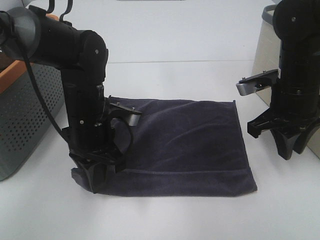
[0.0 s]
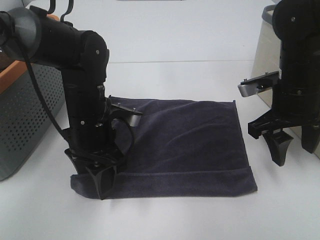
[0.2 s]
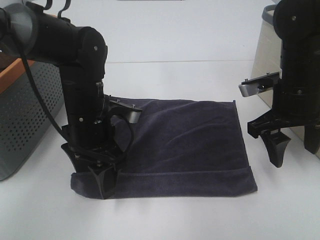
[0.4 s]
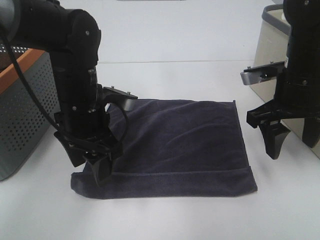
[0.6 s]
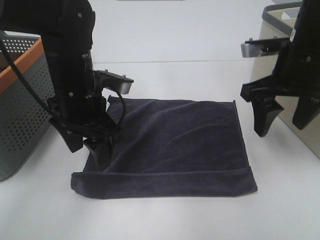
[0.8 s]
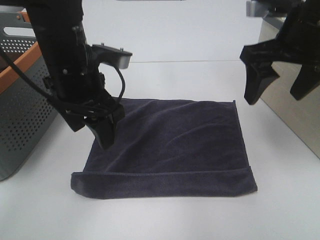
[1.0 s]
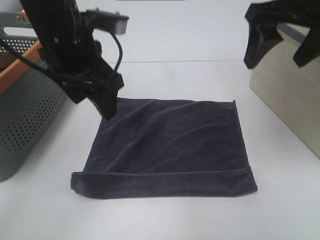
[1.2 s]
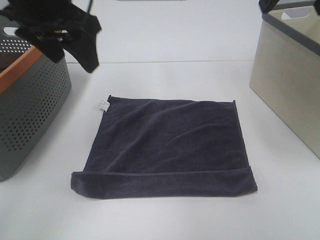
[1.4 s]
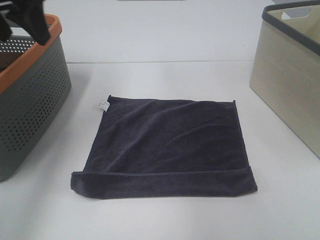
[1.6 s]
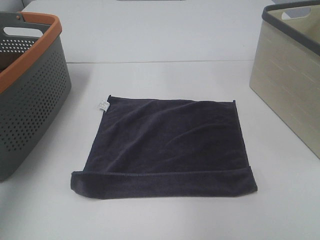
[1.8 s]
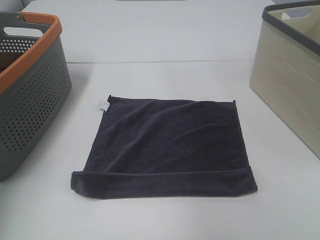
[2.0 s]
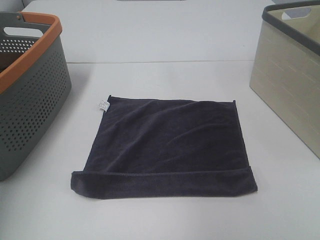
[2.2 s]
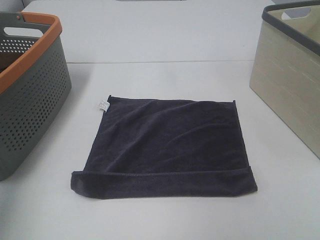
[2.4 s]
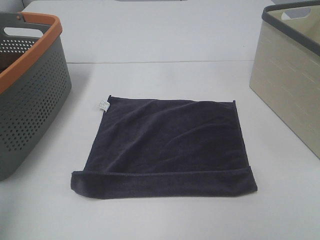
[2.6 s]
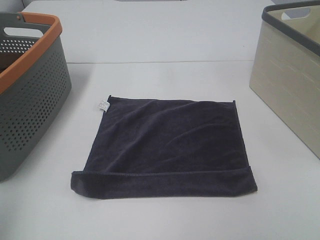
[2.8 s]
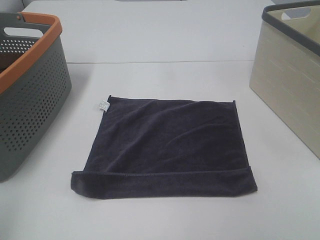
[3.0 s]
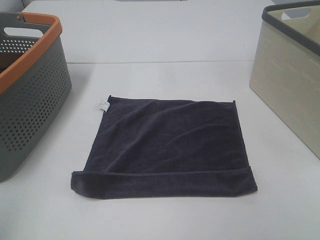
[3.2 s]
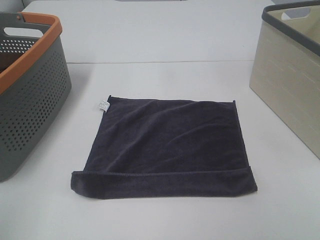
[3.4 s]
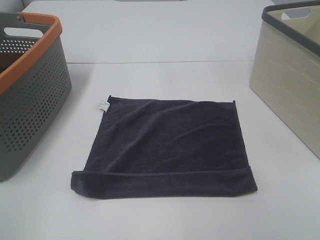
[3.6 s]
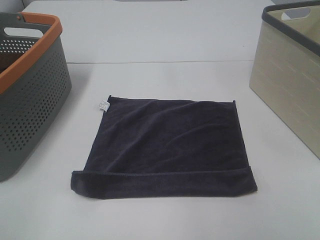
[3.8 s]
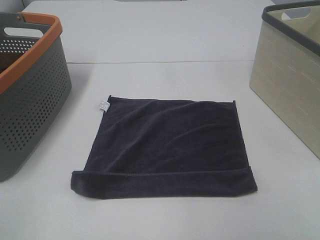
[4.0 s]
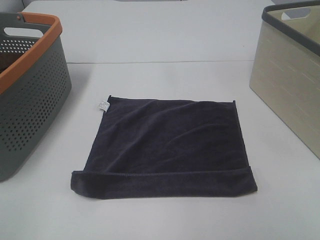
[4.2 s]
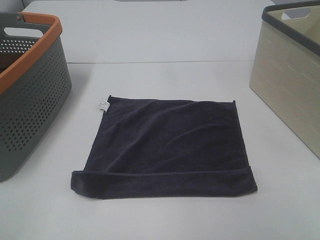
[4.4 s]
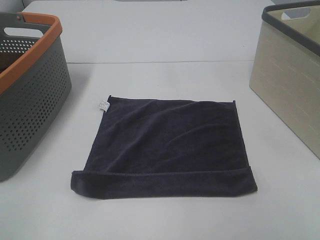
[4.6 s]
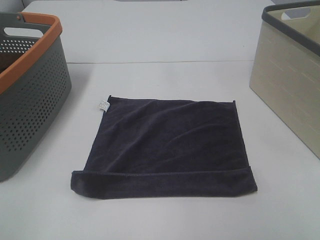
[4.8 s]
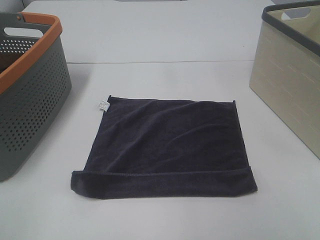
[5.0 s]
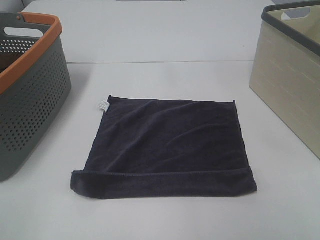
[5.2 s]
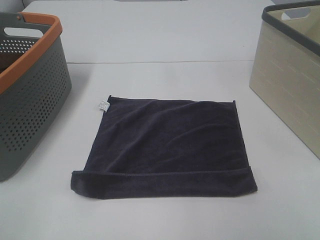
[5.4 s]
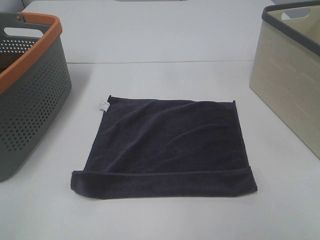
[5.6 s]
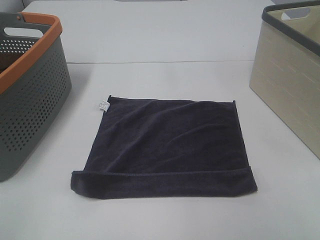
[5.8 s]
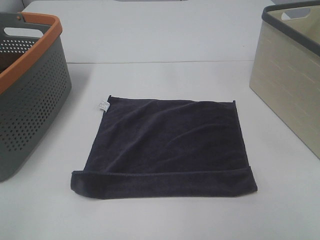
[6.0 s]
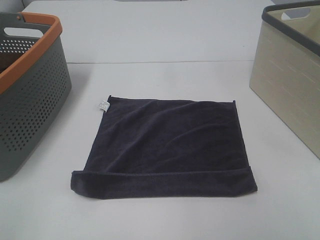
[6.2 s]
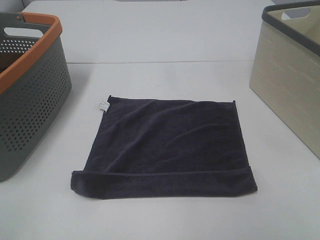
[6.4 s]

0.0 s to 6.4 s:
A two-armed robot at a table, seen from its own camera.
Task of the whole recording: Remove the towel and place it.
0.0 to 1.6 s: The left gripper shifts roughly 25 cm upward and to the left, and opens up. Meanwhile the right gripper moves upward, some 25 cm, and opens.
1.6 to 3.2 s: The left gripper shifts roughly 30 cm backward.
4.8 to 6.4 s: Both grippers stay about where they are.

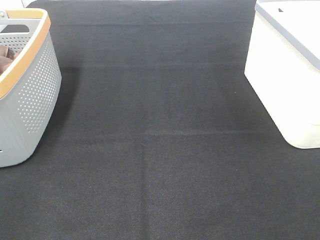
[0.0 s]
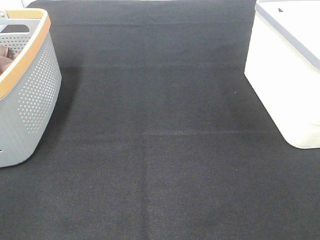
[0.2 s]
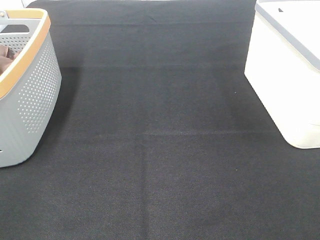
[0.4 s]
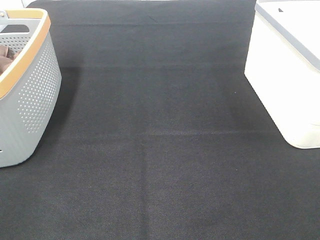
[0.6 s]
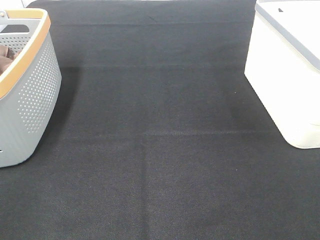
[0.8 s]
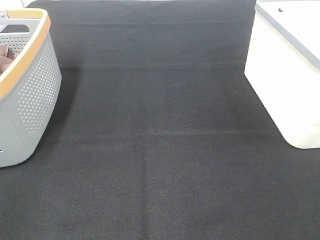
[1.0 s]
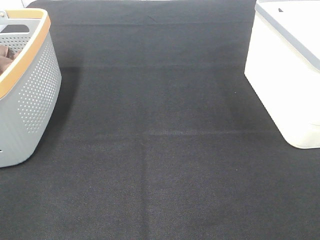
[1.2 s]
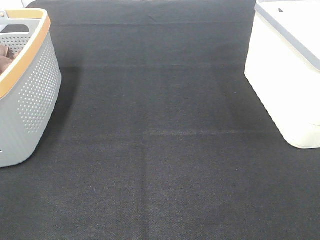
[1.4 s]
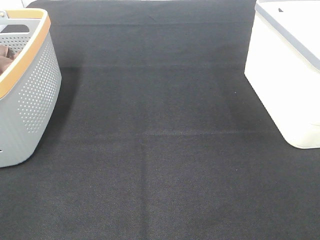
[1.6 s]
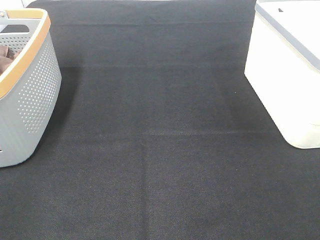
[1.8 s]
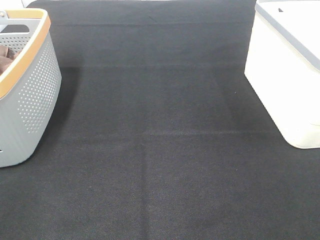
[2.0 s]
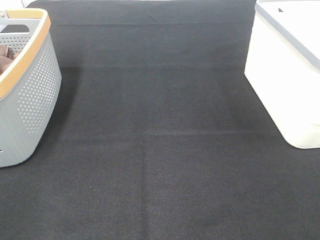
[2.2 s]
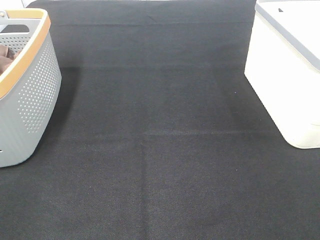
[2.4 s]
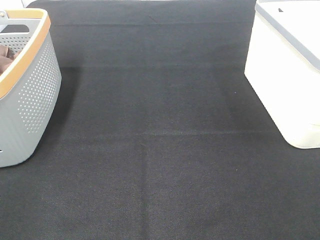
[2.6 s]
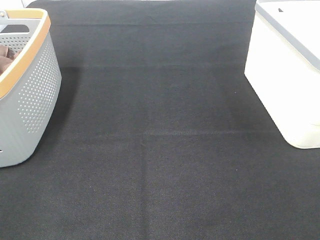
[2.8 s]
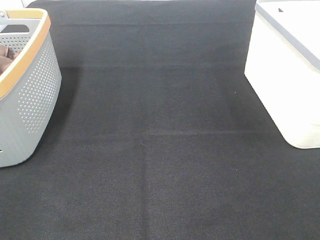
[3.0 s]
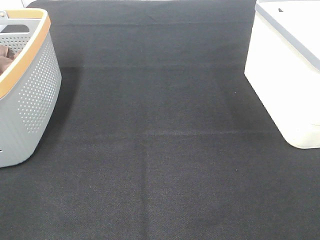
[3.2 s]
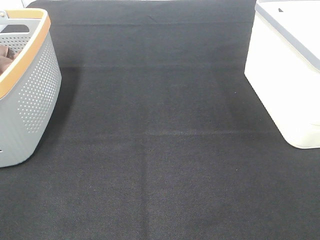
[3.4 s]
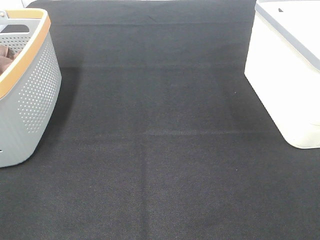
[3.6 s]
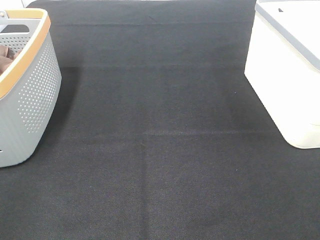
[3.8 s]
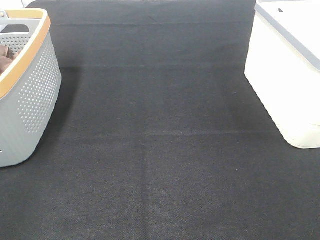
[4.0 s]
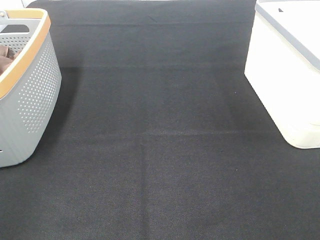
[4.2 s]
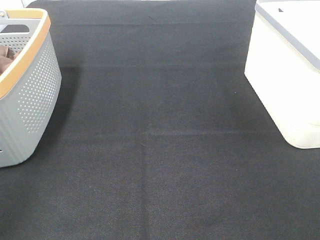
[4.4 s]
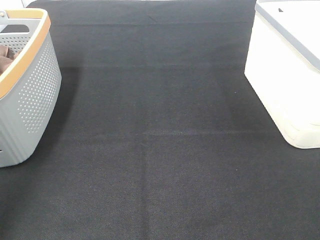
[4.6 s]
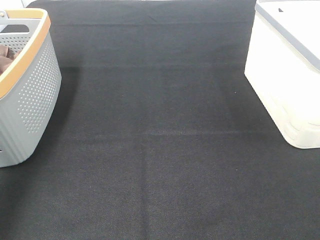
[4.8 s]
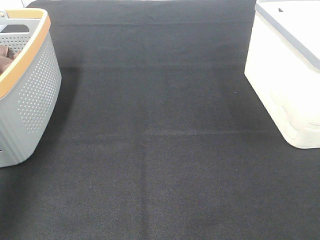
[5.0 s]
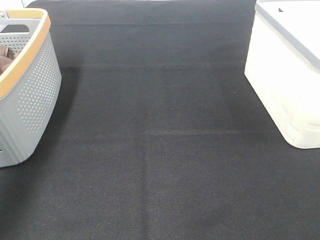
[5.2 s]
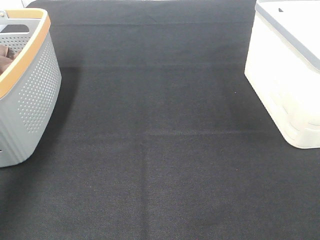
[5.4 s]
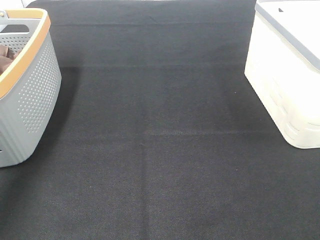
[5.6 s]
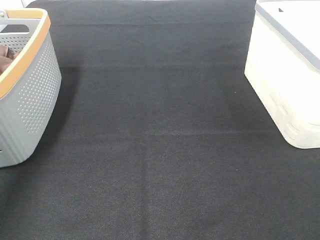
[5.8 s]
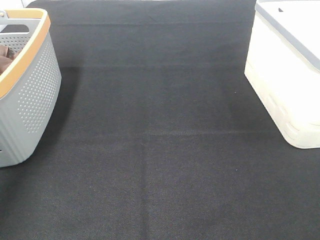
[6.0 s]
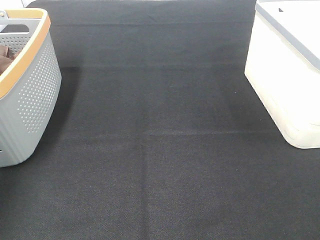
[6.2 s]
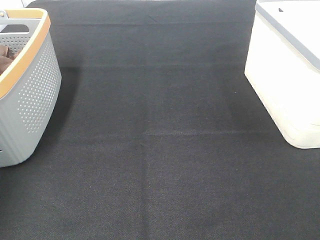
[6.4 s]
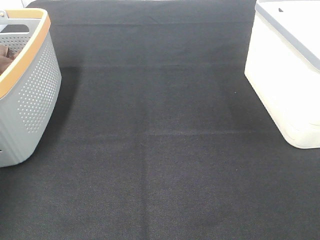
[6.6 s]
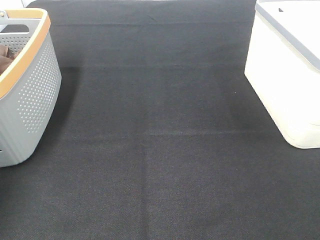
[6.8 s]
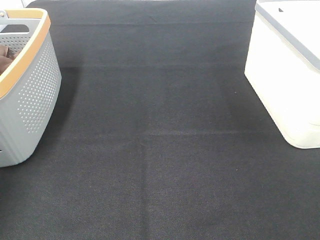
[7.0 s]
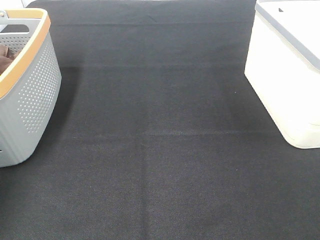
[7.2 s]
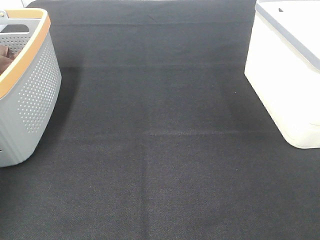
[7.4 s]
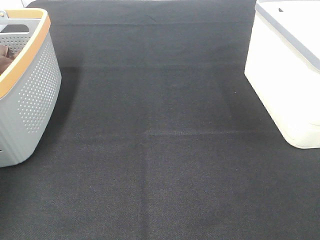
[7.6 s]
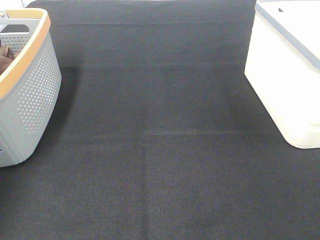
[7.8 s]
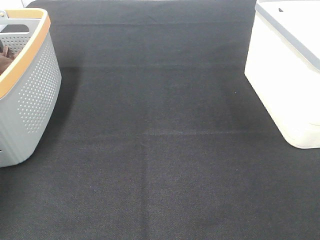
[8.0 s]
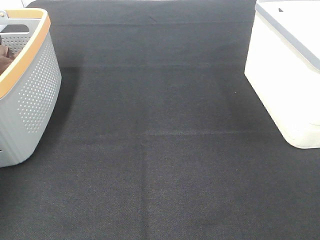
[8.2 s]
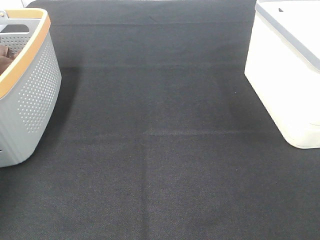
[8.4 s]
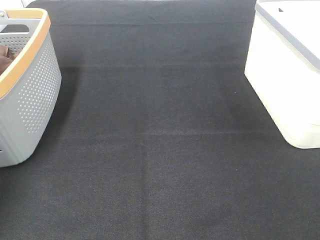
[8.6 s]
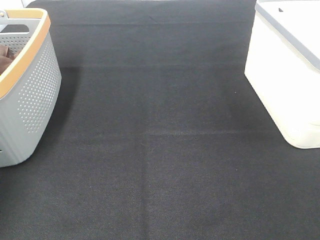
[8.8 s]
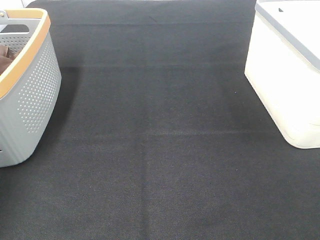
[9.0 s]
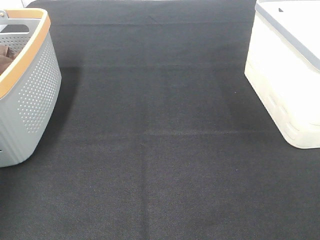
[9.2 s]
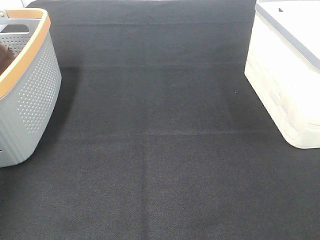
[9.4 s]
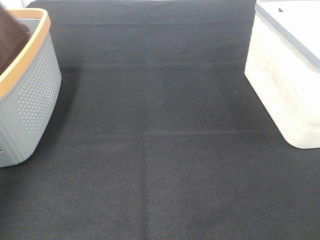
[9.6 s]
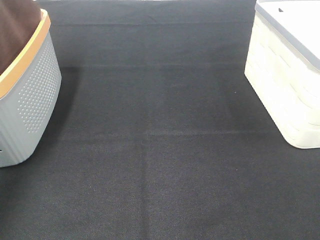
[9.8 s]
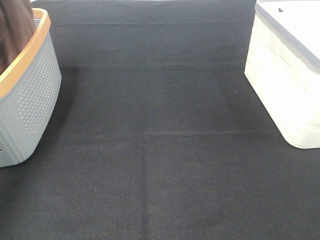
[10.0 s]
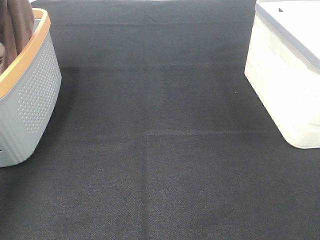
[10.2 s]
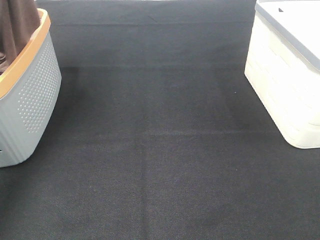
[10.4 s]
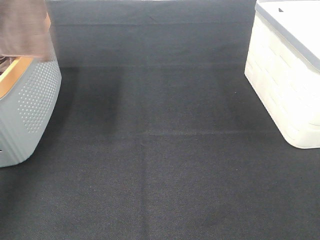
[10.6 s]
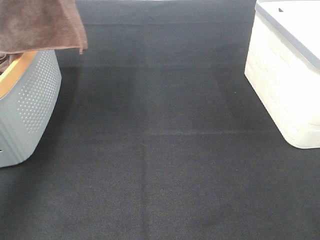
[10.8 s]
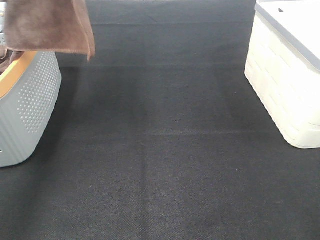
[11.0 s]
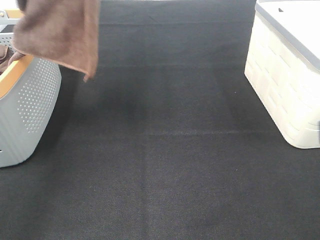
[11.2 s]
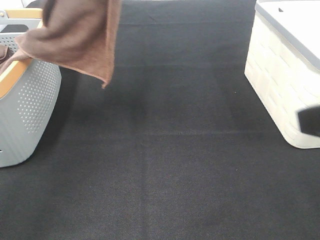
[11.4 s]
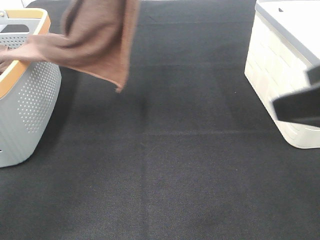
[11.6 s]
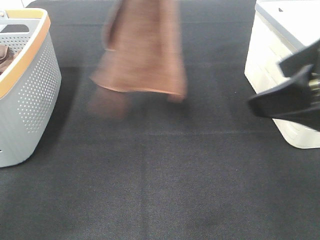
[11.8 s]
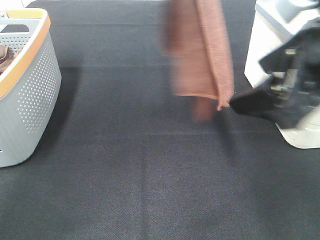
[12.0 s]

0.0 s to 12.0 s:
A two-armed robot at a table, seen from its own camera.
Task of the whole recording: Remove the towel and place it.
0.0 to 3.0 s: Both grippers stay put.
9.0 to 10.4 s: The left gripper moves upward and backward, roughly 25 cm.
10.4 to 12.0 s: The right gripper shifts approximately 20 cm forward and to the left. The left gripper shifts some 20 cm to the right.

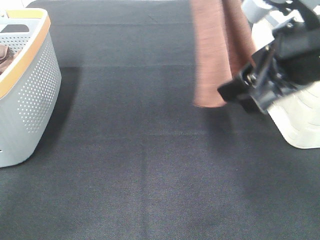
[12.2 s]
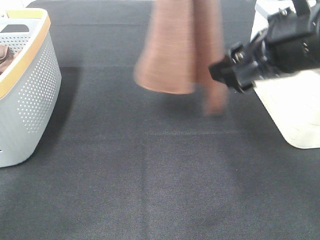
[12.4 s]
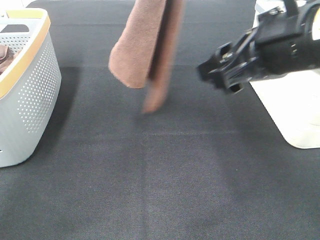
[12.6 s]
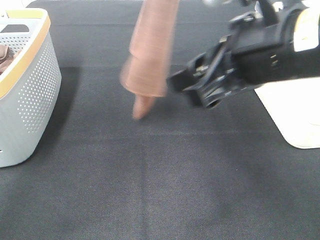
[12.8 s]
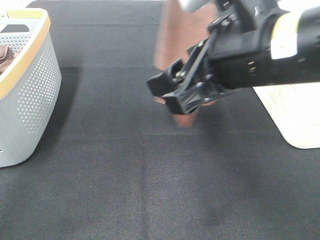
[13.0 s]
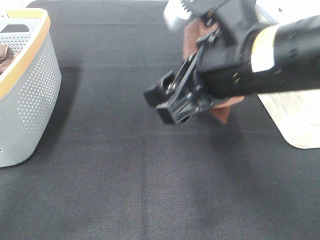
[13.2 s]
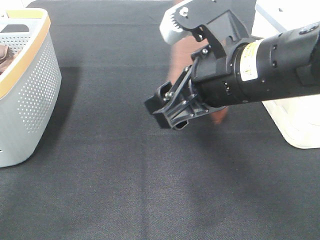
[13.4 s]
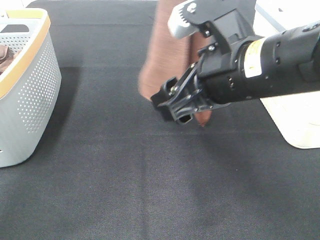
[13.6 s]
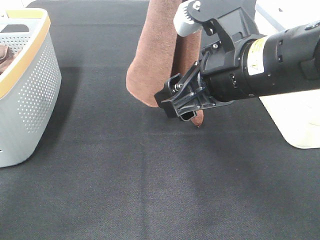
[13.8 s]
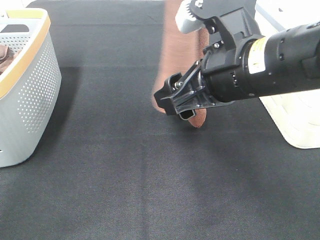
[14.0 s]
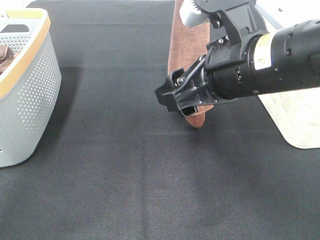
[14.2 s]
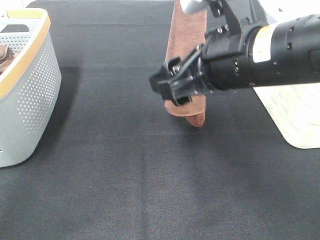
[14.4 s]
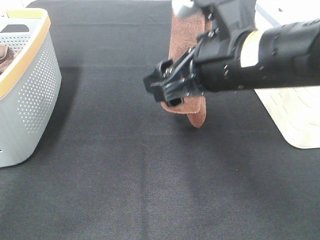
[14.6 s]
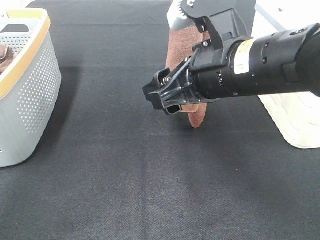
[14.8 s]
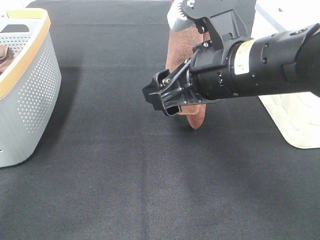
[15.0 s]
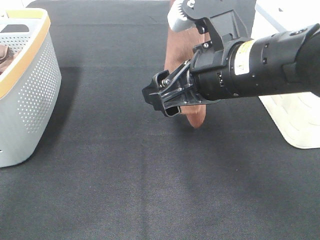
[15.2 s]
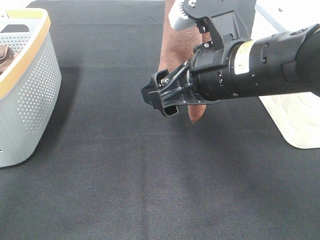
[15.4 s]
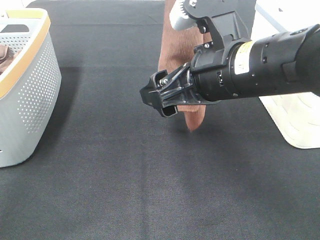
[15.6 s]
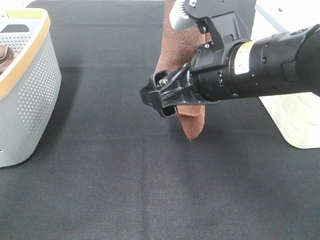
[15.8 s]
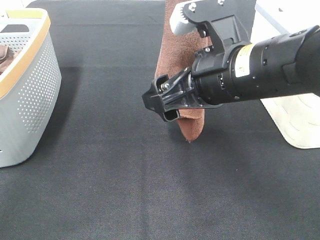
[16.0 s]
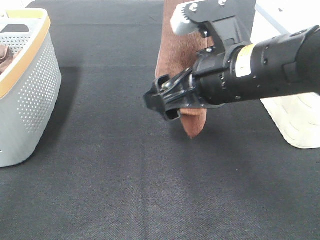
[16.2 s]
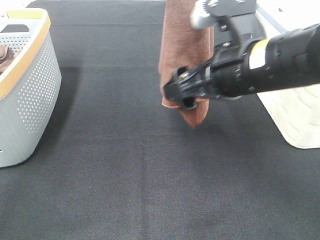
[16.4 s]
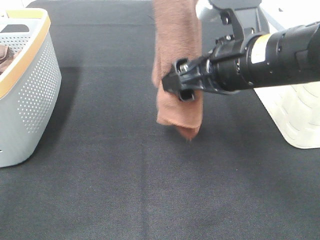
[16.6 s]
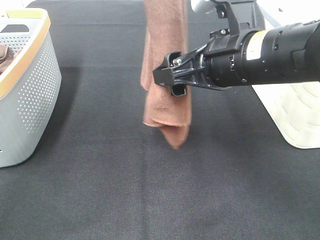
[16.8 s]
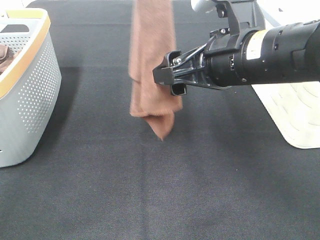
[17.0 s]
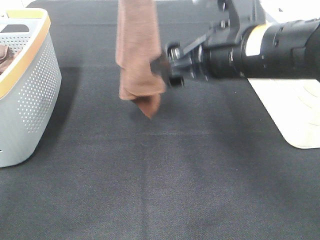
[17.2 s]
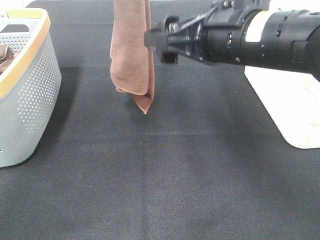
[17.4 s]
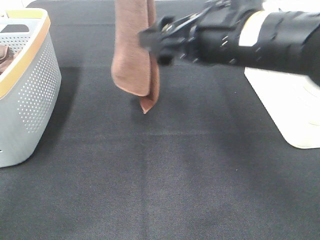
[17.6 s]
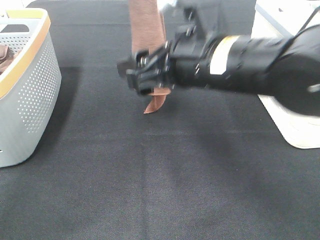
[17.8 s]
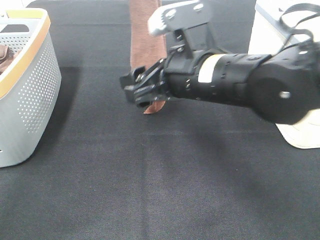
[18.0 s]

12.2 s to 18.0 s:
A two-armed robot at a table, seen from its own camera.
Task of the whole recording: Remove the towel and place it.
12.2 to 13.6 s: The right gripper is displaced to the left by about 5 cm.
13.6 to 15.0 s: There are only small adjustments of the grippers.
15.0 to 16.6 s: The left gripper moves some 5 cm.
16.6 to 18.0 s: The right gripper shifts about 5 cm to the left. The left gripper heads forward, covering approximately 5 cm.
